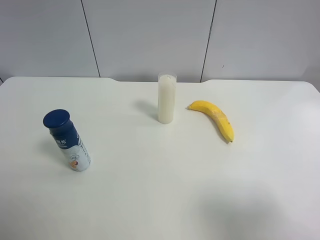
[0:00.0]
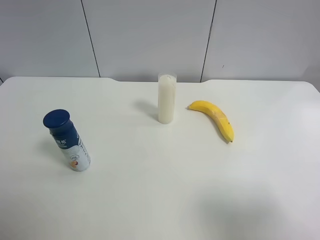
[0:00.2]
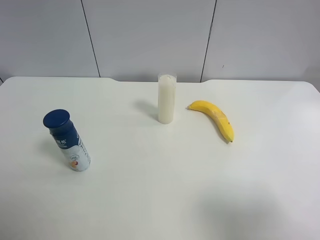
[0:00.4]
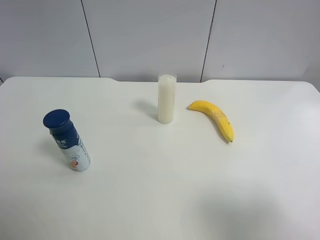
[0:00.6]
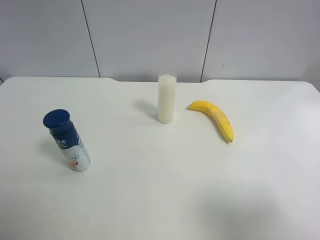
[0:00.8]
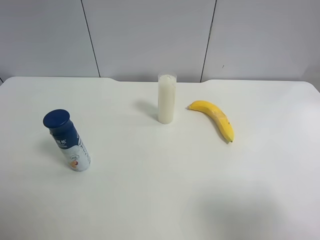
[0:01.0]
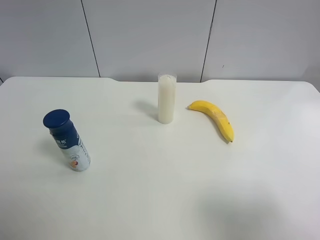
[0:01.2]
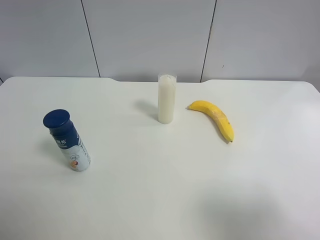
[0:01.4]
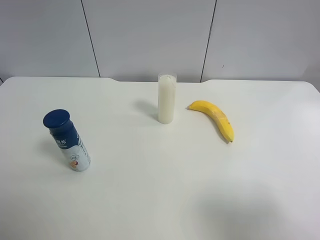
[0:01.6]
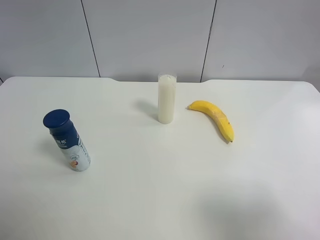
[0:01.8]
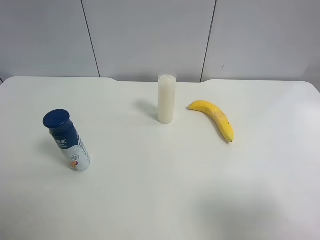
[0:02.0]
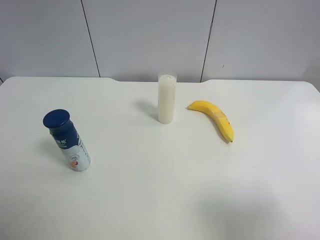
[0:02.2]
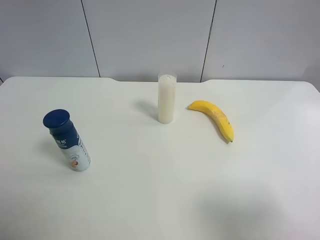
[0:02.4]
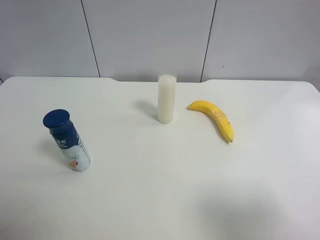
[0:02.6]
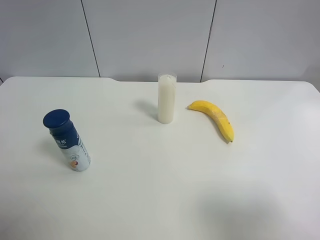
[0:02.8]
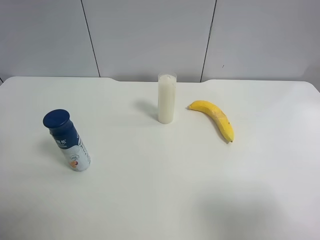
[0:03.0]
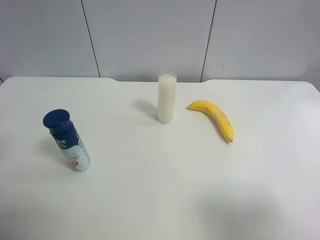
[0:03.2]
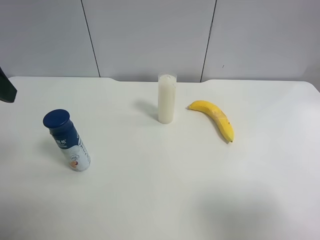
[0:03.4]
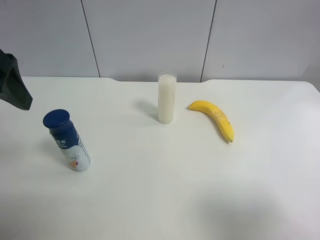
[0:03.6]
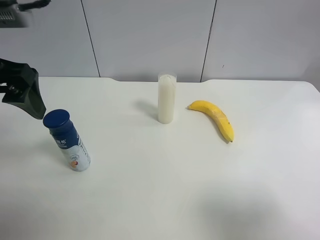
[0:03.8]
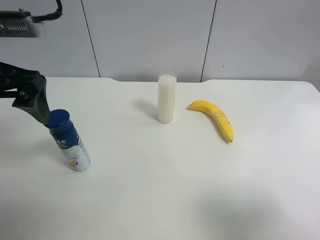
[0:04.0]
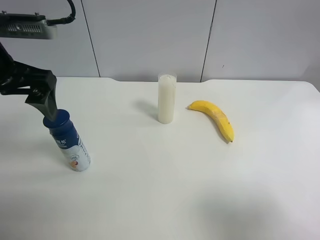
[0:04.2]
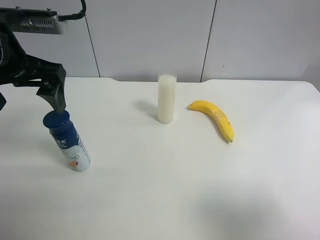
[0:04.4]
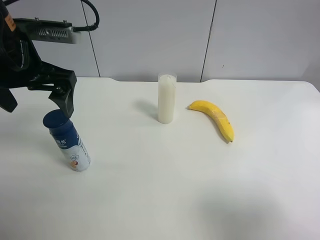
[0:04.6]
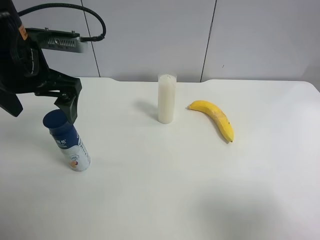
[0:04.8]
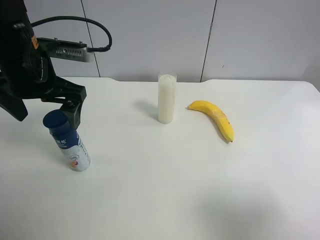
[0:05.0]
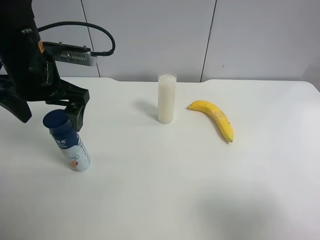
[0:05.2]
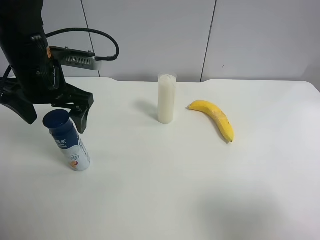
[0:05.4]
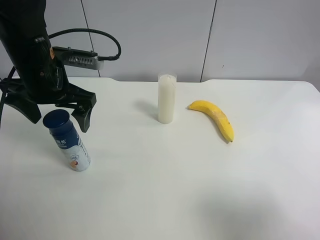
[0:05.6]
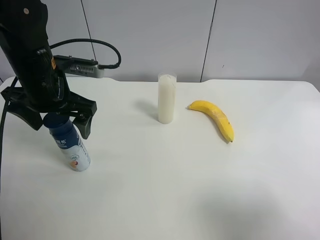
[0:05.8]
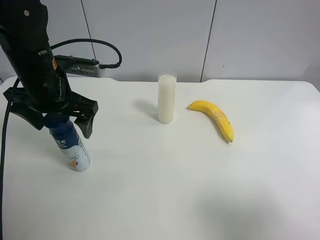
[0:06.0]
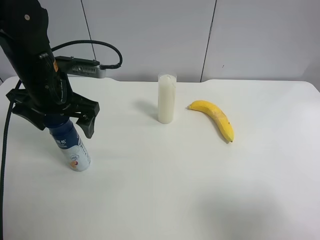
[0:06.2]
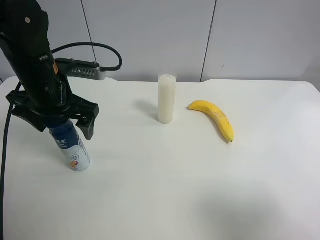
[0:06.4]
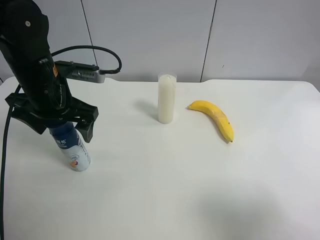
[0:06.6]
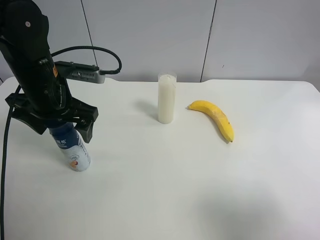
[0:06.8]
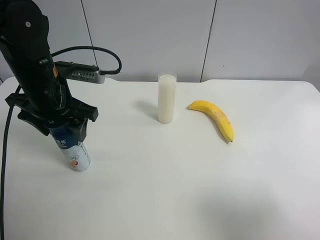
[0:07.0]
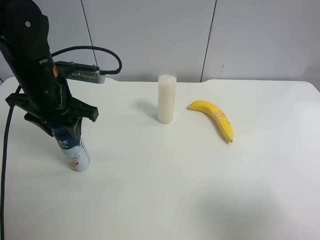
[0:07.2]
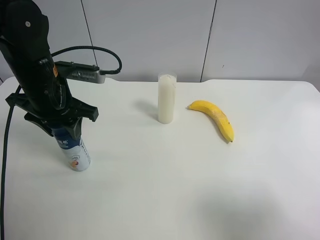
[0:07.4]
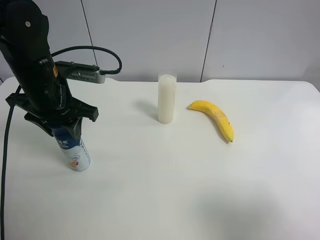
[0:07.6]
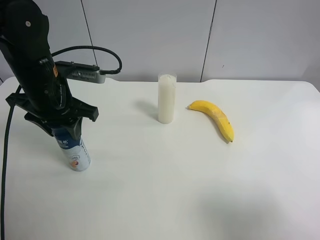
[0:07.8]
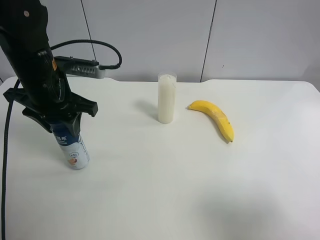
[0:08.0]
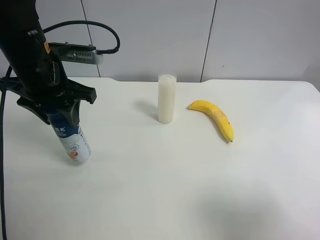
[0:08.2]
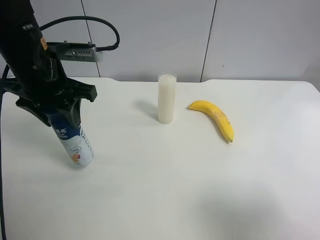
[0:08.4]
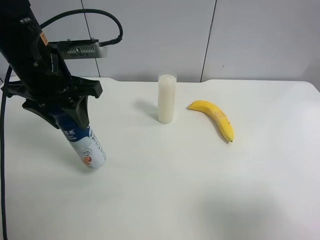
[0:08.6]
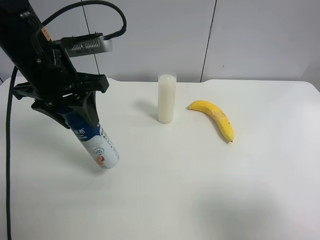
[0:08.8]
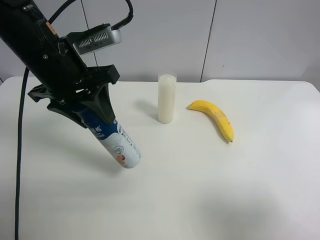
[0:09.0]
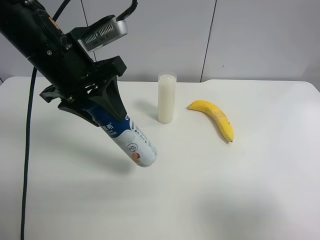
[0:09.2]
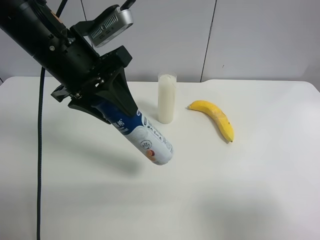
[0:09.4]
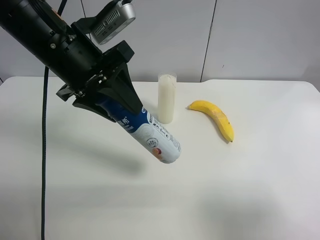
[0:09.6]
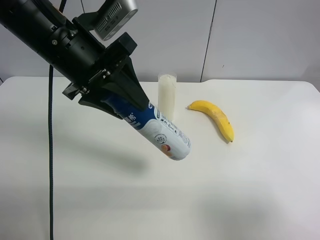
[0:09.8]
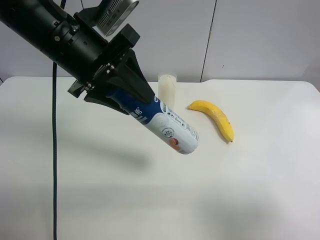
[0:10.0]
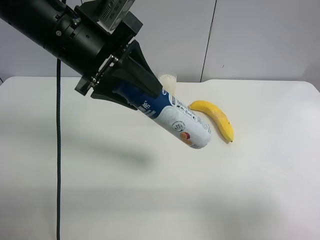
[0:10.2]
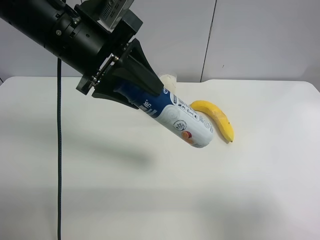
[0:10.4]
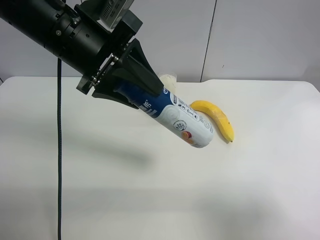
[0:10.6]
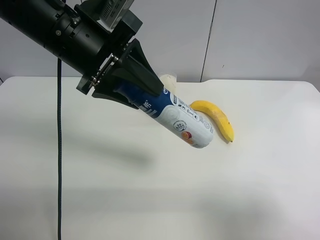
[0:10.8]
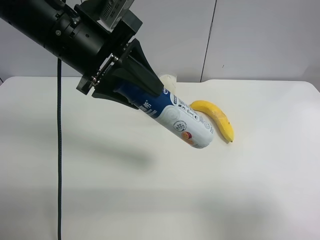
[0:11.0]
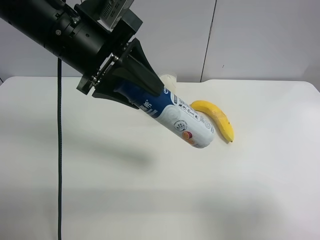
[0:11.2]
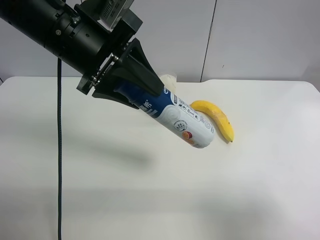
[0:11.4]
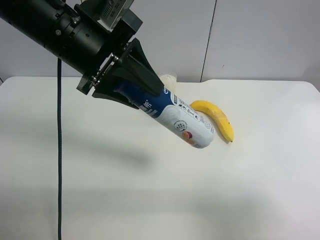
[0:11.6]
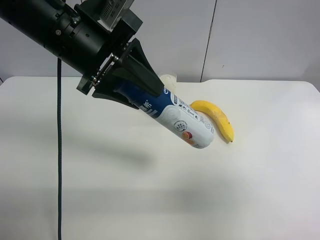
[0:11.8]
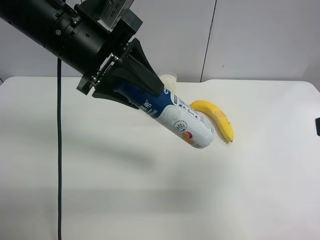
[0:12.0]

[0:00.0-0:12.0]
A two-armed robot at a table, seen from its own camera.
Task of the whole recording: use the left gripper to pick up the item and transfer it from the left gripper to the right gripper.
0:03.0 to 0:04.4: The left gripper shifts some 15 cm to the right, forward and downward.
0:04.4 to 0:06.0: The left gripper shifts roughly 10 cm downward.
0:06.0 to 0:07.6: The left gripper closes up.
0:07.6 to 0:09.0: The left gripper shifts about 5 cm upward.
0:10.4 to 0:12.0: The right gripper shifts some 10 cm forward and upward.

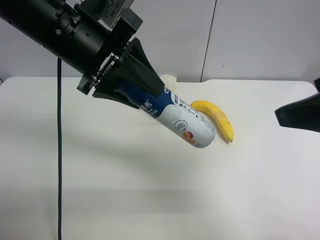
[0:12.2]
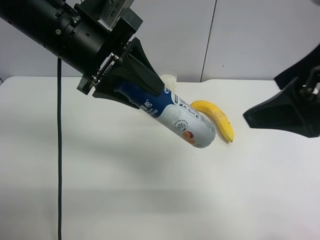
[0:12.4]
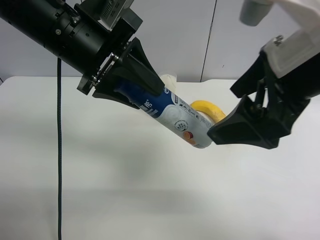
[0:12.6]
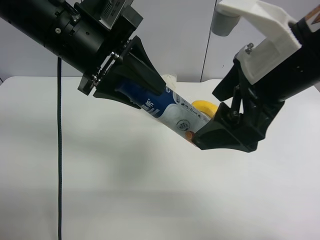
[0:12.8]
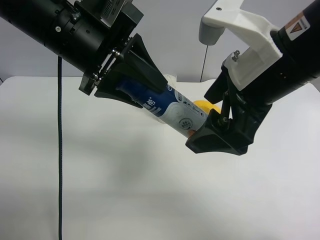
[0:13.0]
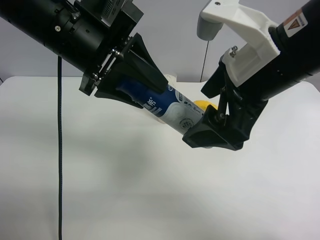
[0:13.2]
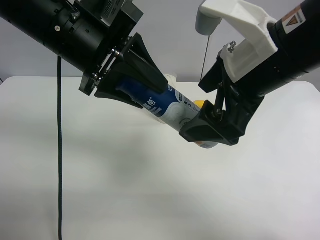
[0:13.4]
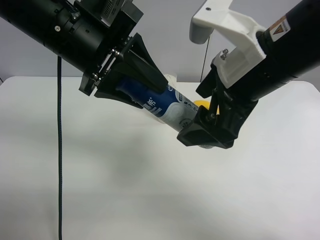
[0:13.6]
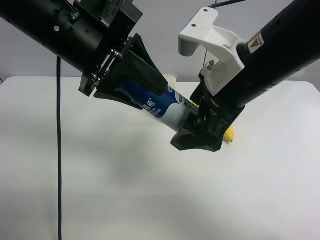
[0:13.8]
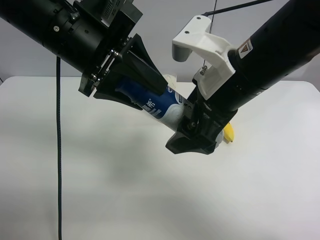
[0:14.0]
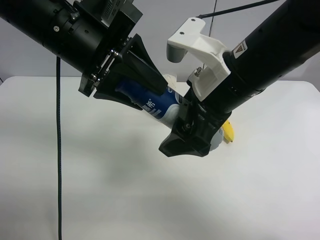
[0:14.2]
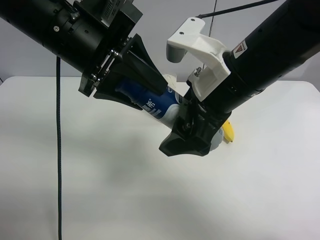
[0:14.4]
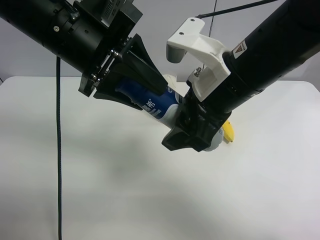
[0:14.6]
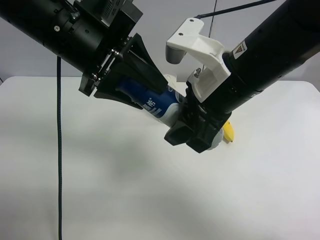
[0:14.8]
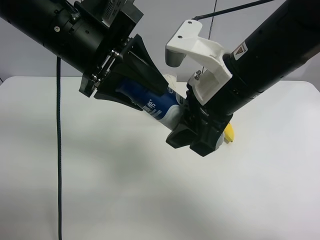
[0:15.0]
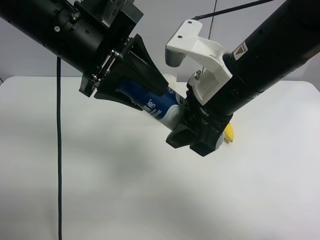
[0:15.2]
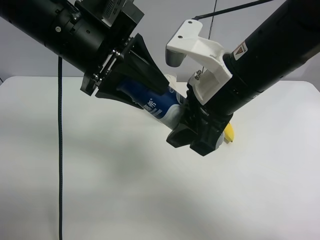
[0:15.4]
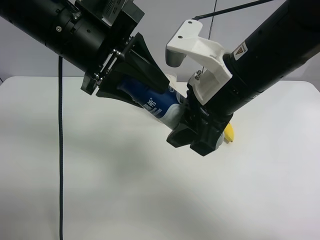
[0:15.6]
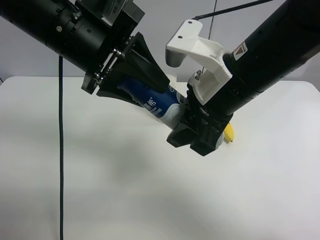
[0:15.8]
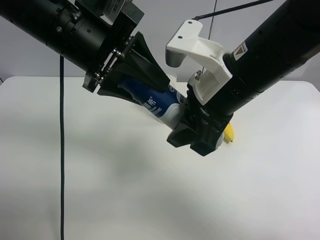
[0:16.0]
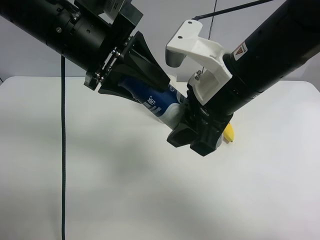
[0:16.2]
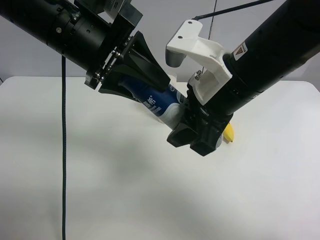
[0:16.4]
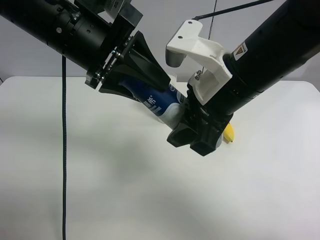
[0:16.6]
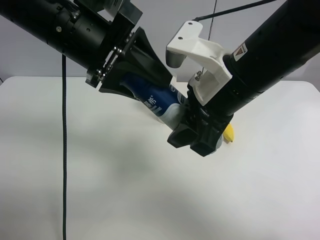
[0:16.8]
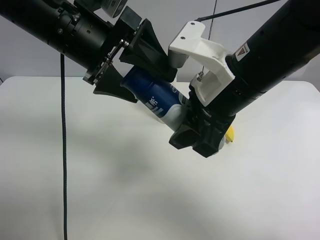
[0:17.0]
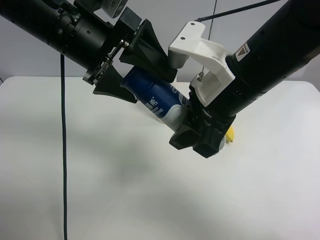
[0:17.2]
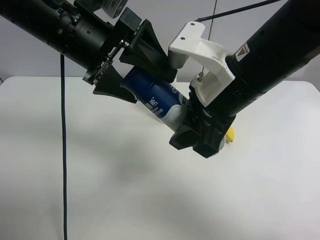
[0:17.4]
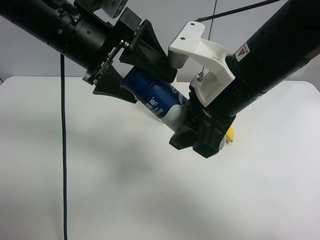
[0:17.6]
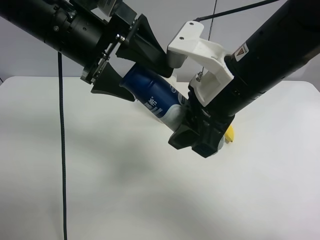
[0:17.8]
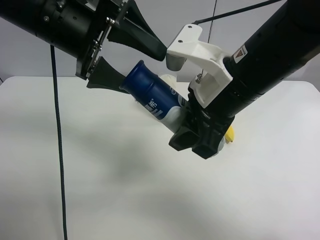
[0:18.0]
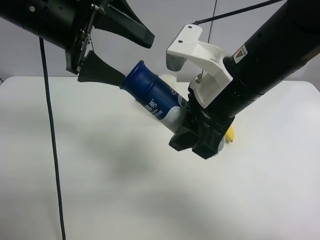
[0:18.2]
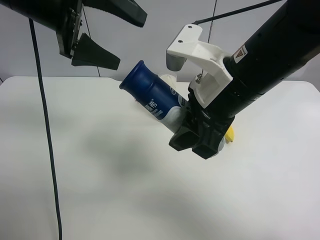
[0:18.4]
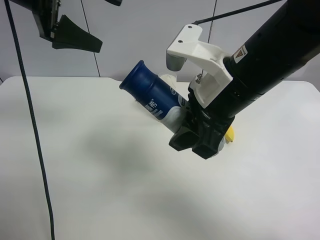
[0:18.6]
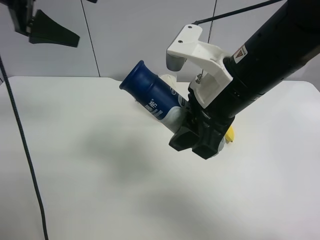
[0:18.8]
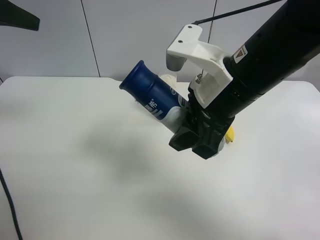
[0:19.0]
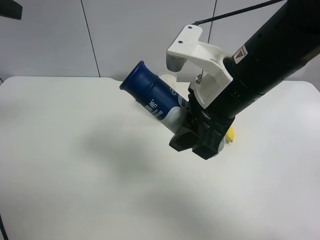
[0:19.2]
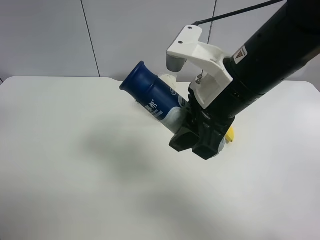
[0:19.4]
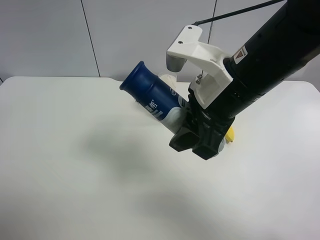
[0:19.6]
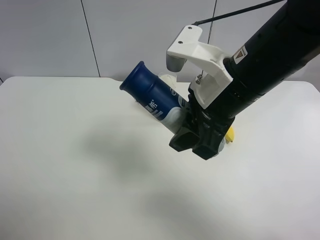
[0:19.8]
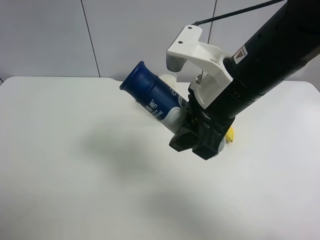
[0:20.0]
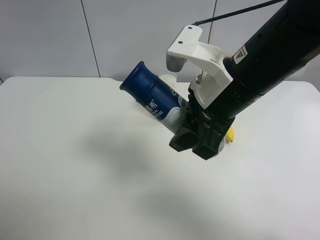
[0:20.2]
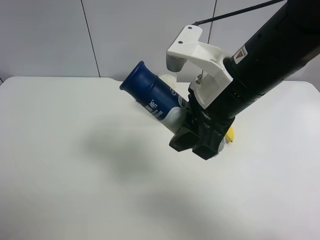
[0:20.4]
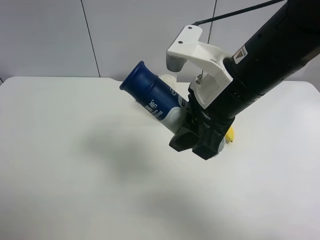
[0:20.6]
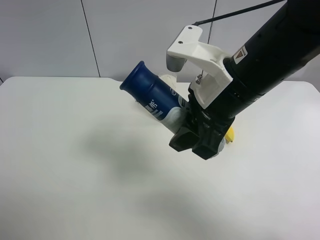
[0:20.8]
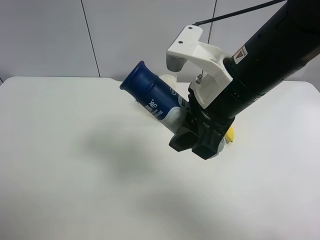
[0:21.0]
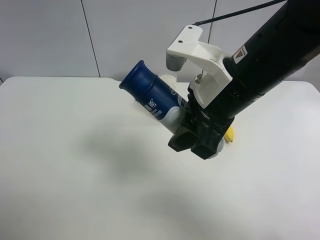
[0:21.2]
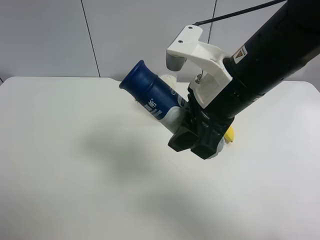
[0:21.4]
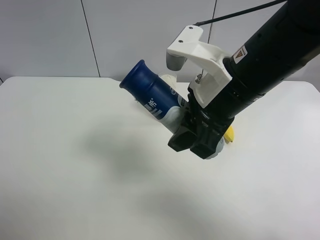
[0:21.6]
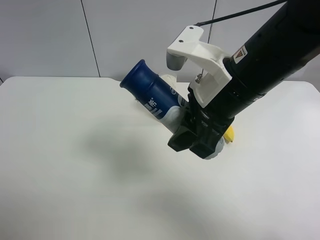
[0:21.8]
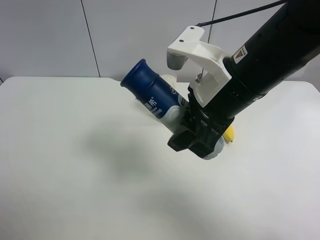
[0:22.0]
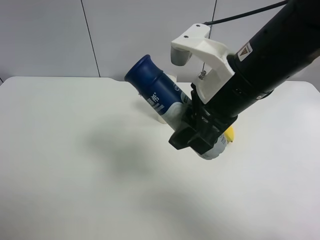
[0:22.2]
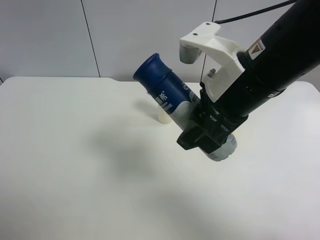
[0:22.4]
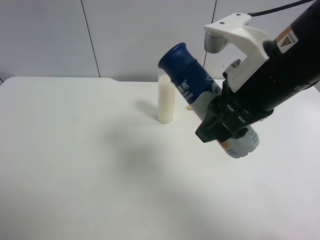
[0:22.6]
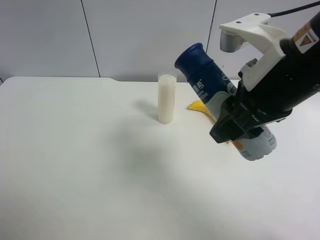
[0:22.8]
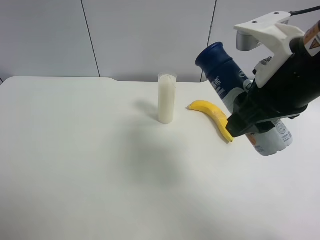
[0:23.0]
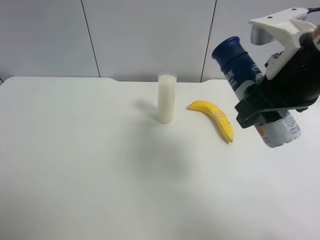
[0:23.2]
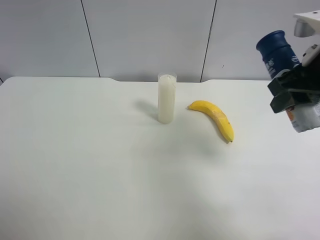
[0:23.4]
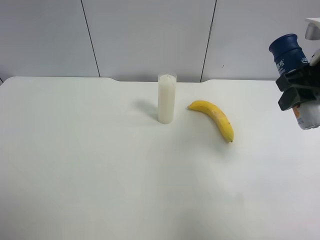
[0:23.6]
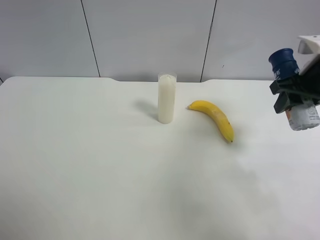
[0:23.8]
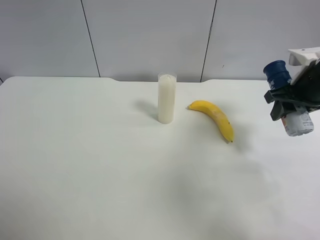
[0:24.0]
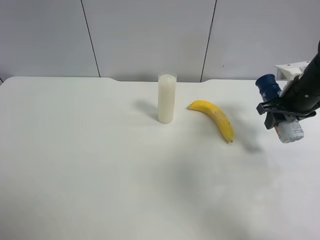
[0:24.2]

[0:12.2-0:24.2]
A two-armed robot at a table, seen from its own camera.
Task of the whole recording: use the left gripper to pick up the item and transfer it from the left gripper to the right gripper.
0:12.2 to 0:13.8: The right gripper travels to the left, forward and downward by approximately 15 cm.
0:13.8 to 0:15.2: The right gripper closes its fingers.
0:15.2 to 0:16.6: There are only small adjustments of the grippers.
0:16.6 to 0:18.2: The left gripper changes place by about 5 cm, and opens its fingers.
0:18.2 to 0:19.8: The left gripper travels backward, to the left and upward by roughly 25 cm.
0:19.8 to 0:21.2: The left gripper goes some 20 cm downward and backward.
0:22.6 to 0:24.2: The right gripper moves to the right, forward and downward, approximately 25 cm.
